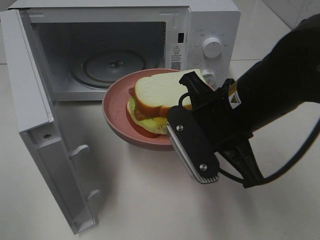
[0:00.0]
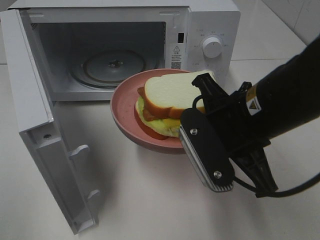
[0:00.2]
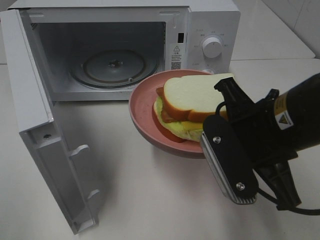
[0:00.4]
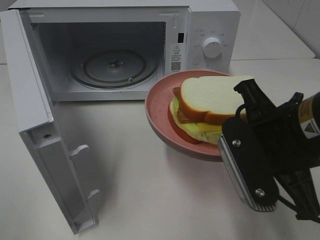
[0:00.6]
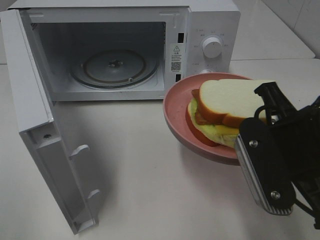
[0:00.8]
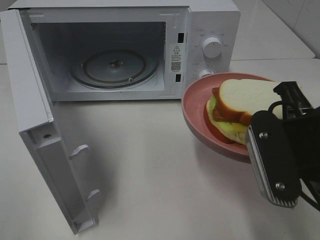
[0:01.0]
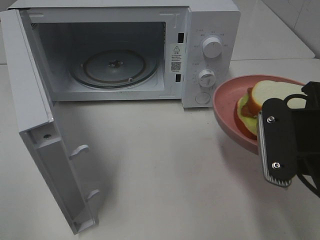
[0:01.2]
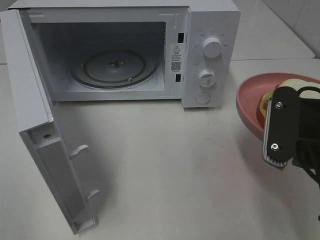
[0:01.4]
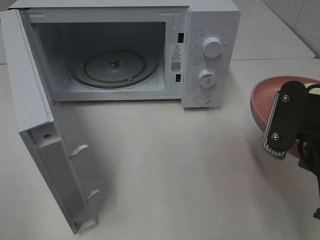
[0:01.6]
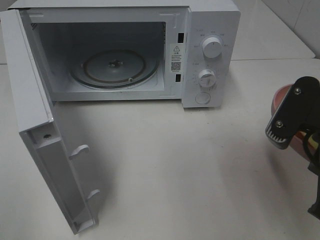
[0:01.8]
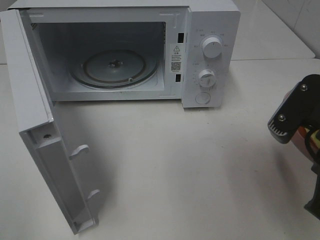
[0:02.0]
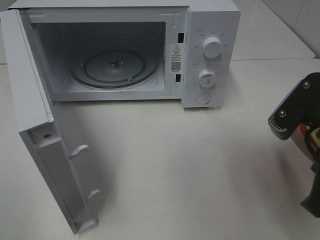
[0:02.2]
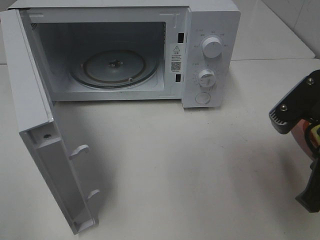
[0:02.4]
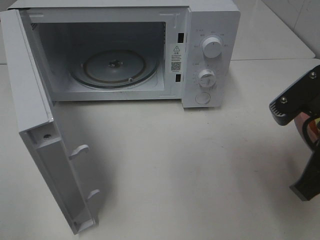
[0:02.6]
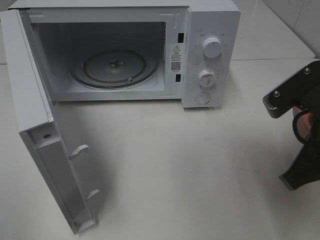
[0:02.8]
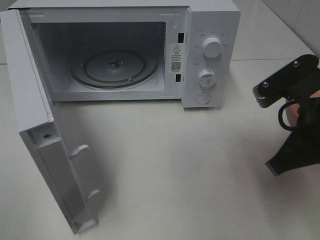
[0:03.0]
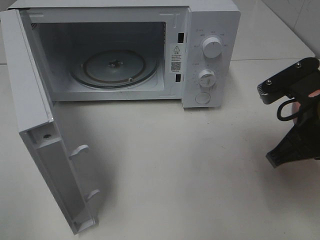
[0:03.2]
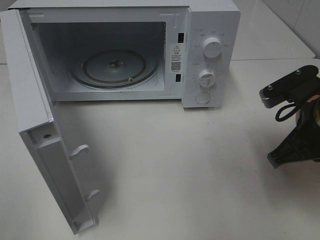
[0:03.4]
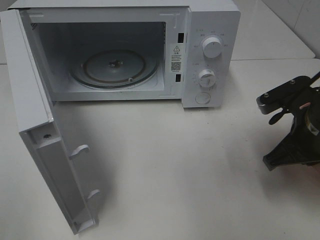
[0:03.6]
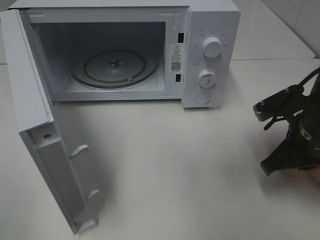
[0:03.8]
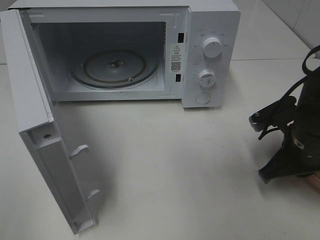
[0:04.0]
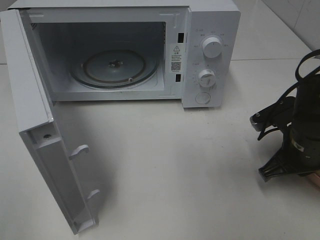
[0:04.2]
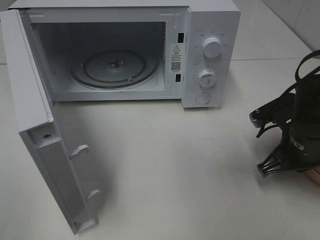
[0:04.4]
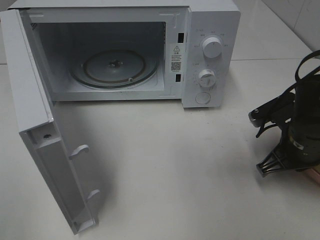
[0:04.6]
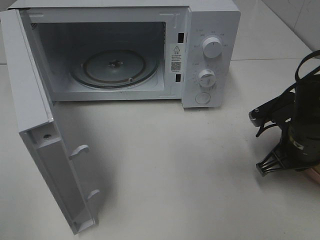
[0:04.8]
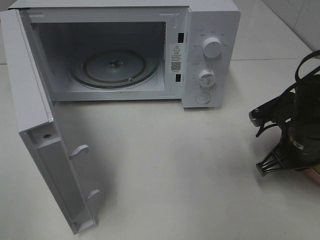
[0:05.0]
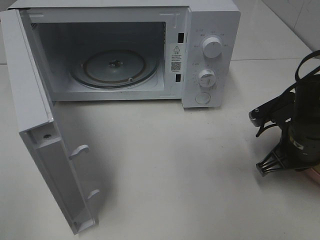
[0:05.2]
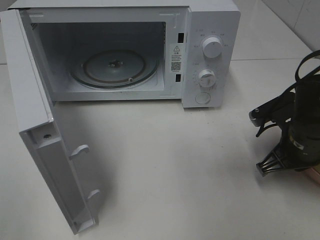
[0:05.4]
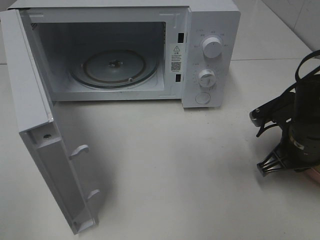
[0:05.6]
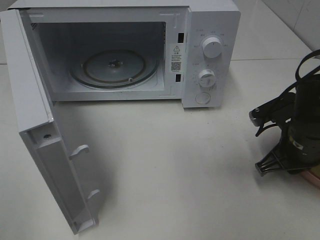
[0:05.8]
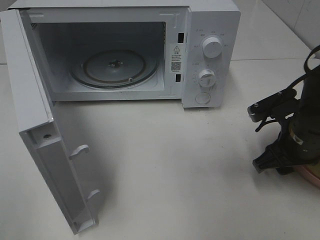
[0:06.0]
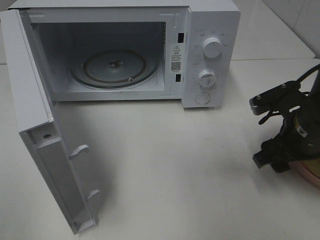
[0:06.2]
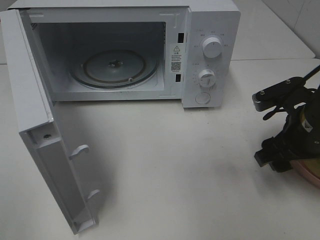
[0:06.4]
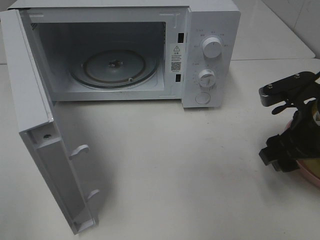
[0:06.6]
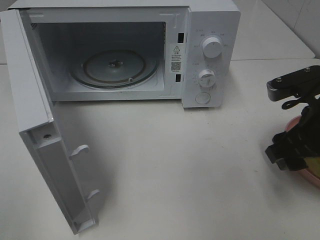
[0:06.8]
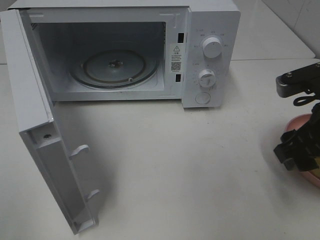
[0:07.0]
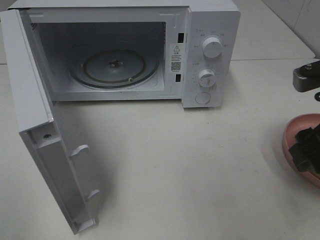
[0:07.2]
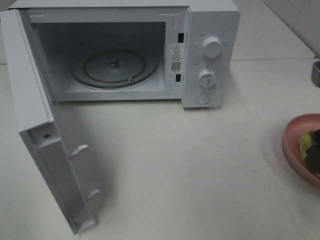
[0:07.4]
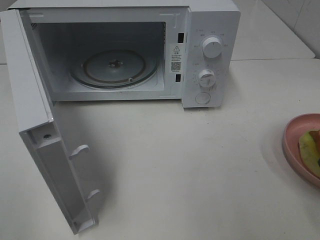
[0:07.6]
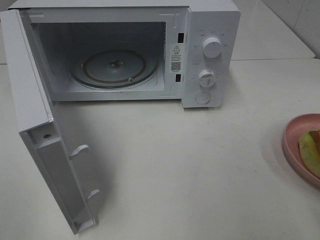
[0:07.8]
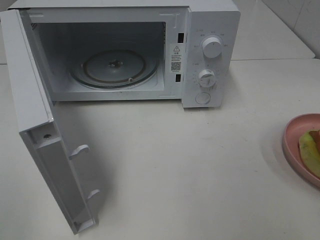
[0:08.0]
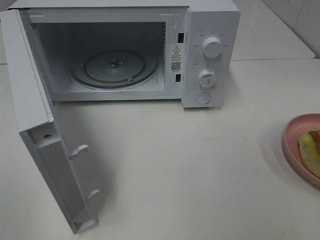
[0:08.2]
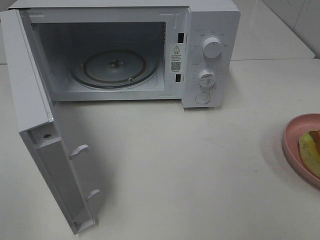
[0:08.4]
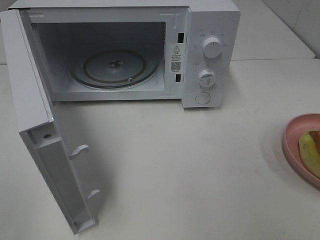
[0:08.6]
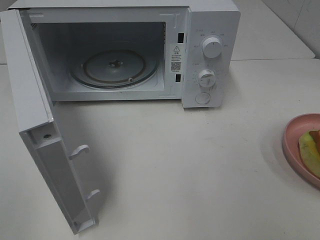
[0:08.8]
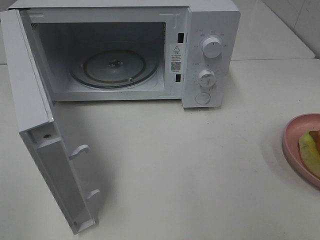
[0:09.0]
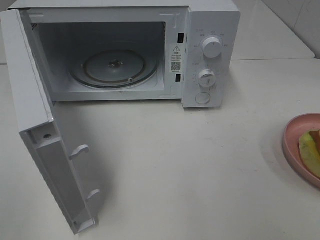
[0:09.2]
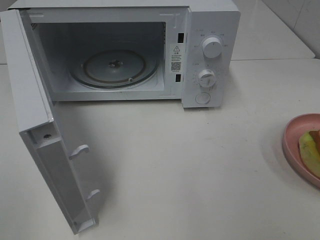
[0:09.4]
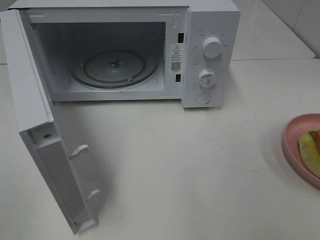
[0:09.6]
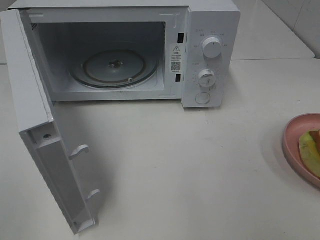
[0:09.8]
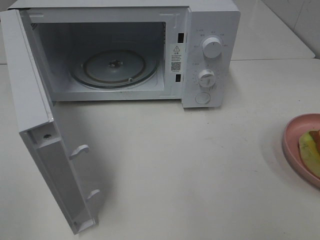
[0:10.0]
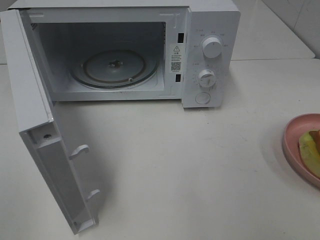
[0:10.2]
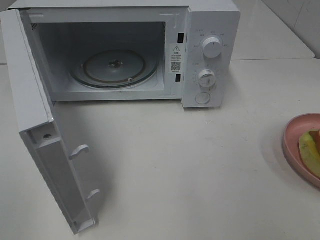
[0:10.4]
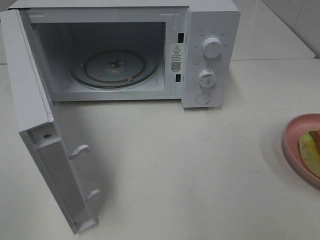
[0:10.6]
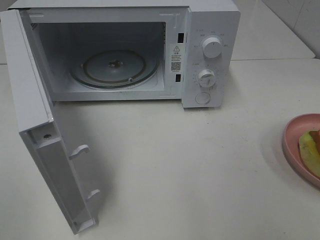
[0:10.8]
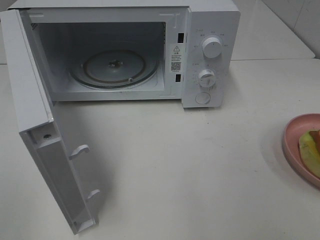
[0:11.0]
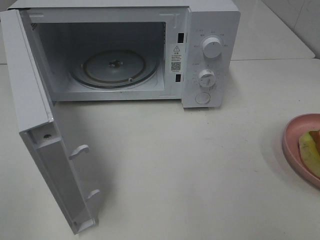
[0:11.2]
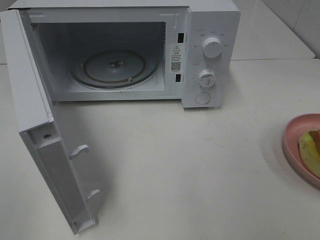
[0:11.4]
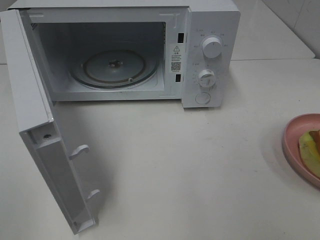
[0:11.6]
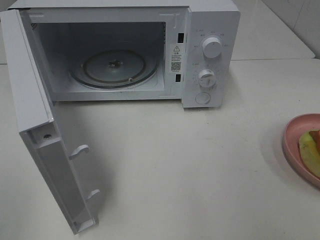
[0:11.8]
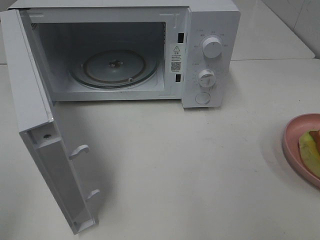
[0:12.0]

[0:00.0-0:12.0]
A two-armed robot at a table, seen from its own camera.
Task of the whole recording: Heat Sandwich.
Step, 0:00.0 to 0:06.8: Right hand: place the plate on the table.
0:00.0 to 0:01.6: The right gripper heads to the right and backward, covering about 10 cm.
0:03.0 to 0:04.4: The right gripper heads downward and forward, covering about 15 cm.
0:04.4 to 0:06.0: The right gripper opens its fingers.
0:06.0 to 0:07.6: The right gripper shifts roughly 15 cm upward and backward.

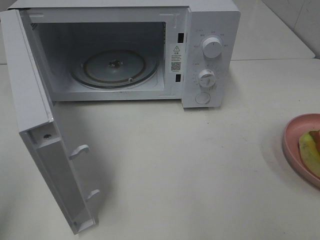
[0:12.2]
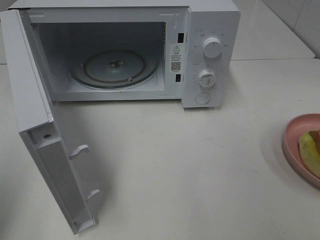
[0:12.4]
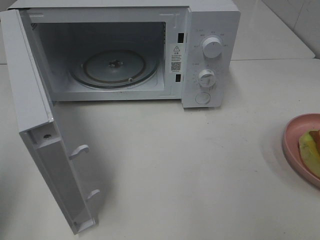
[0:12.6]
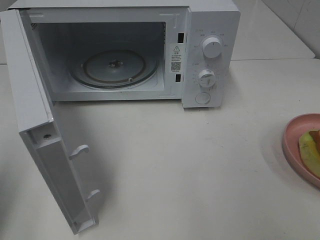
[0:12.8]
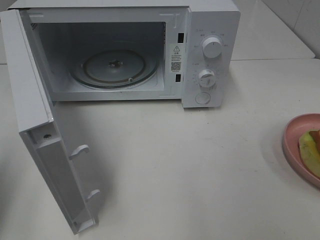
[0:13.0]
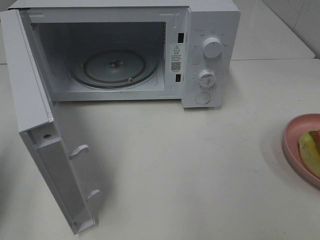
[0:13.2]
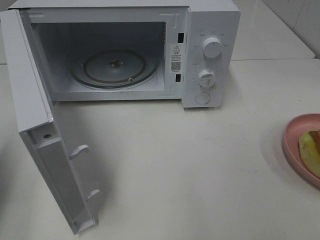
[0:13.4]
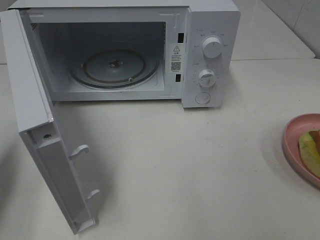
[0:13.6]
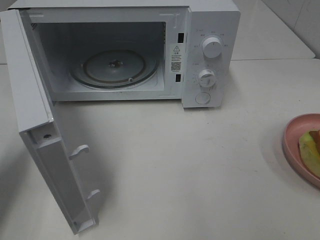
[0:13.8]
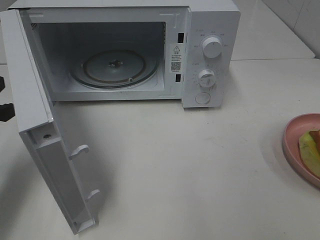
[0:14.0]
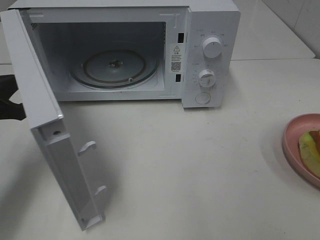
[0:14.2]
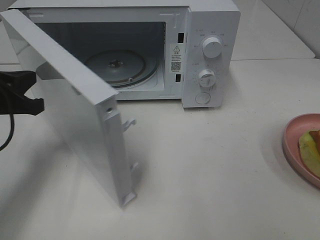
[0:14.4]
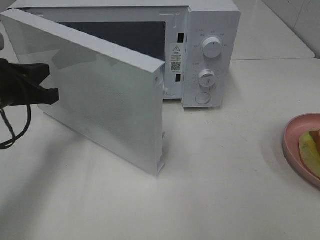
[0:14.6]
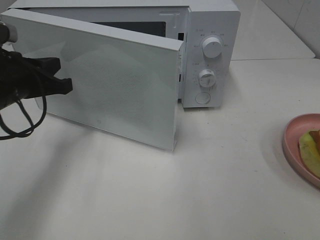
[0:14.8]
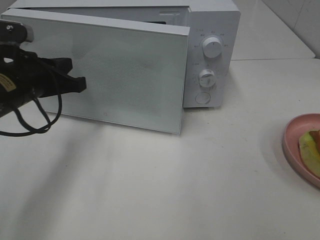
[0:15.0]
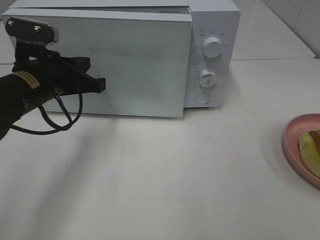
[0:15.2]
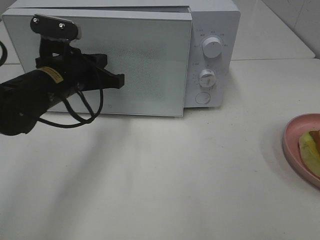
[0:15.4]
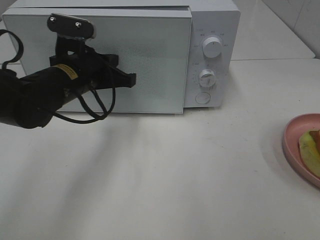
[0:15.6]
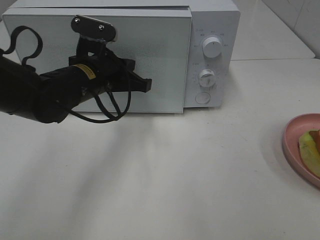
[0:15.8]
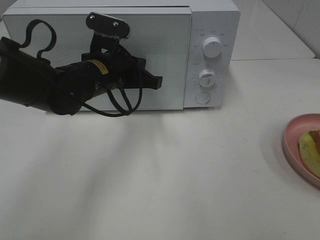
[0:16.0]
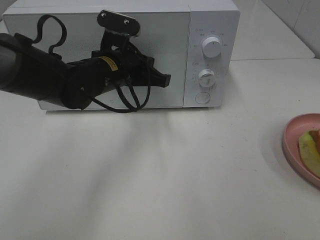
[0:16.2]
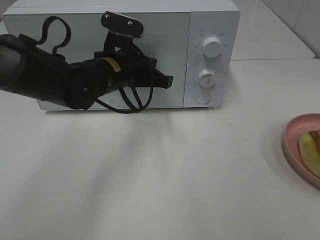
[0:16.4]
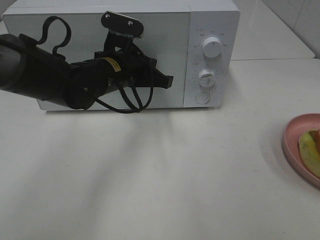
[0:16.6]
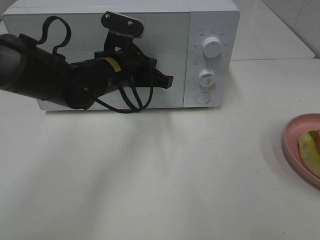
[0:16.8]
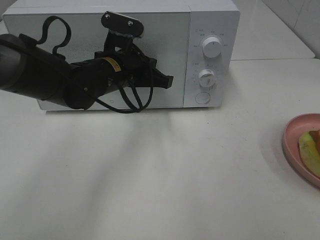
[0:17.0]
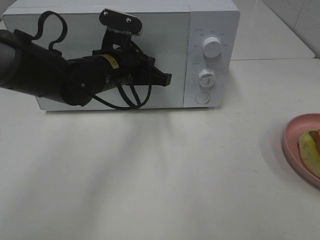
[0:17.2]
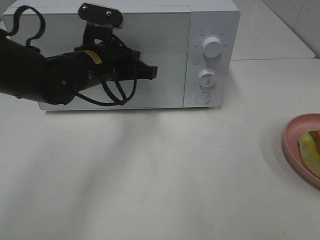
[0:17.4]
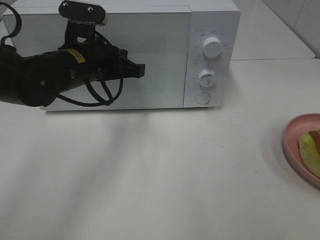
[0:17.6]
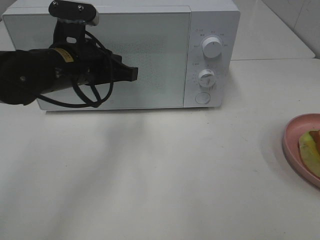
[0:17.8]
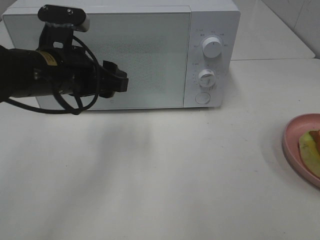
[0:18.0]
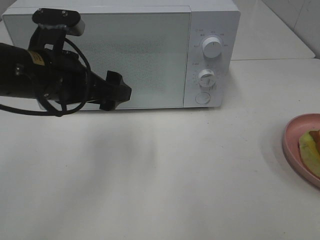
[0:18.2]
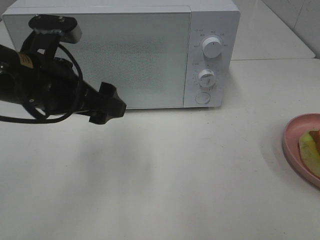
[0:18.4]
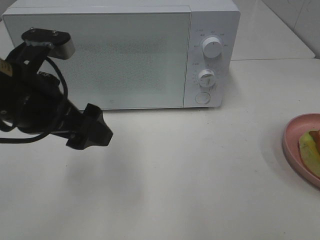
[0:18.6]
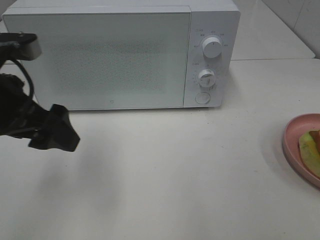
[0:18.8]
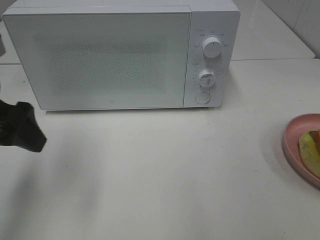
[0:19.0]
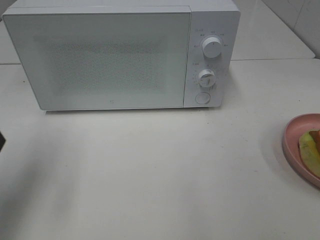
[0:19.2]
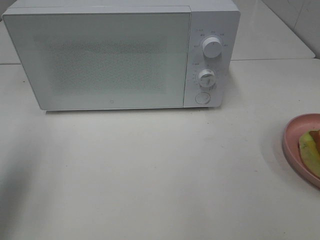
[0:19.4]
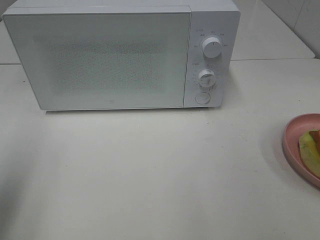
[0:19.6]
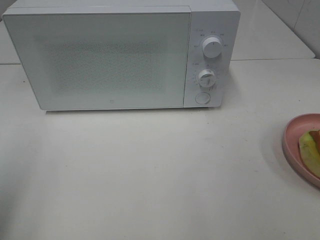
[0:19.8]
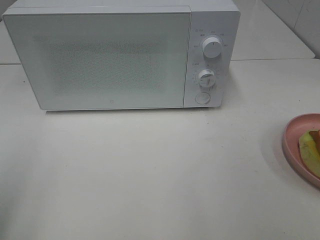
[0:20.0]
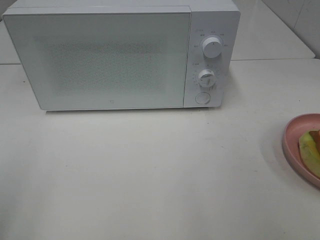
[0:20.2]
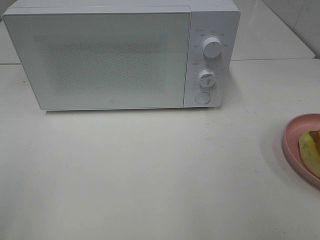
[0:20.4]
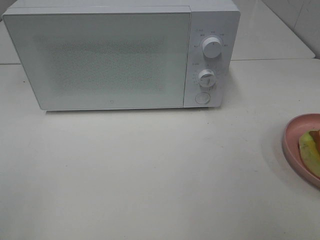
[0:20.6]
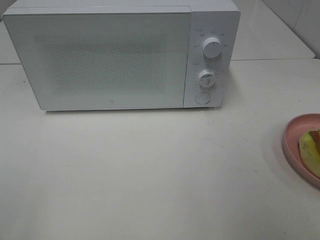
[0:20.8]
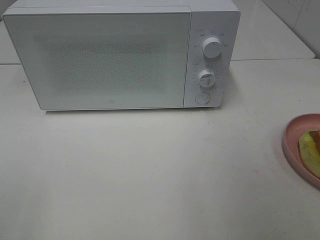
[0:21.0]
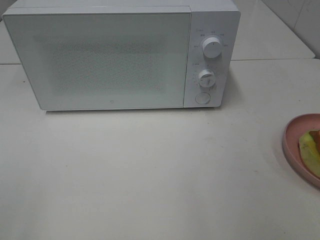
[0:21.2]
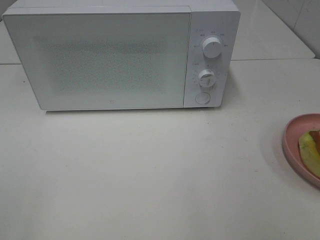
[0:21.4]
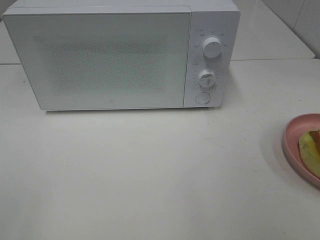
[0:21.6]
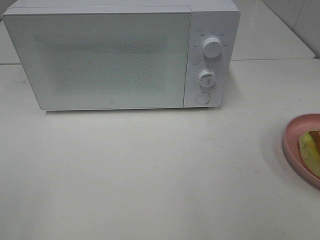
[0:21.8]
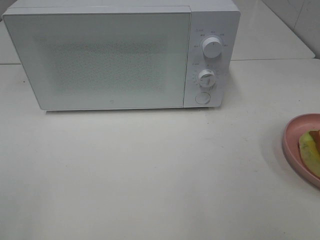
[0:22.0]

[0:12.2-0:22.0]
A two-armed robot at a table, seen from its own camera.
Task of the whole recording: Heat Sandwich.
Step, 0:12.2 to 0:18.0: Left hand: close the microwave door.
0:12.2 to 0:13.6: The left gripper shifts about 20 cm forward and downward, and closes.
0:13.6 to 0:15.0: The left gripper is displaced to the right and forward by approximately 15 cm.
0:15.0 to 0:16.4: The left gripper travels to the right and forward by approximately 15 cm.
0:16.4 to 0:17.8: The left gripper heads to the left, covering approximately 5 cm.
0:17.8 to 0:19.2: The left gripper shifts roughly 20 cm to the left, backward and upward, and opens up.
0:19.2 to 0:20.6: The left gripper moves backward, about 20 cm.
